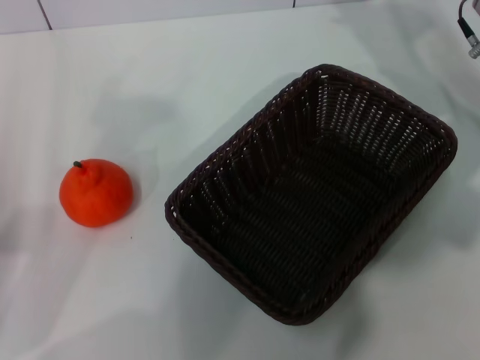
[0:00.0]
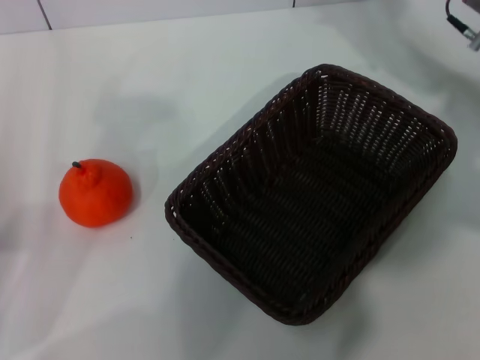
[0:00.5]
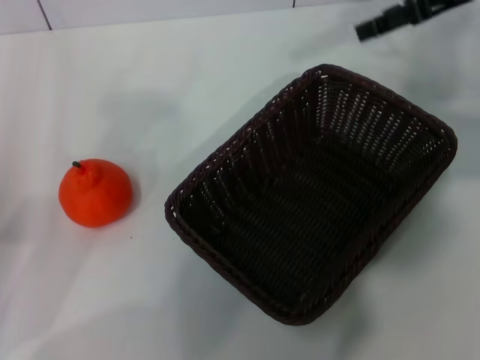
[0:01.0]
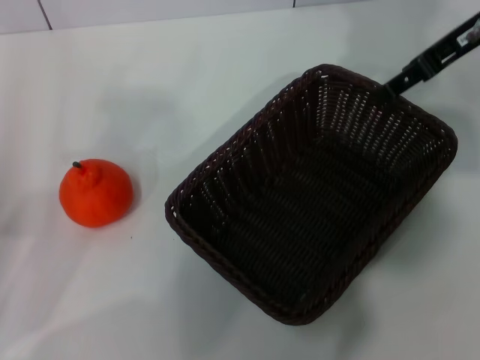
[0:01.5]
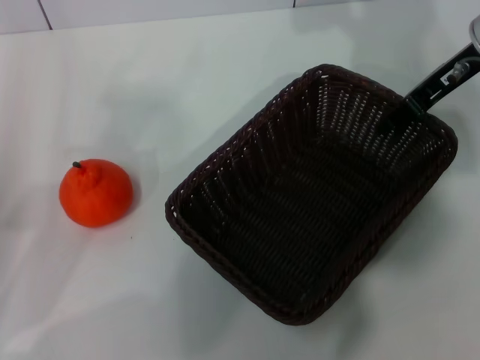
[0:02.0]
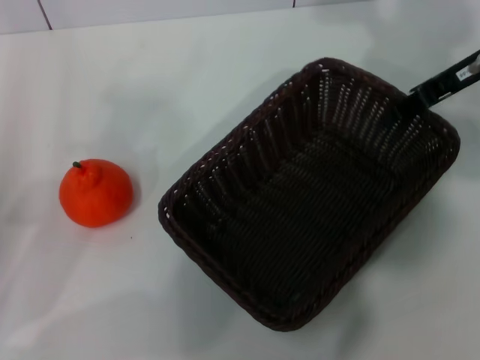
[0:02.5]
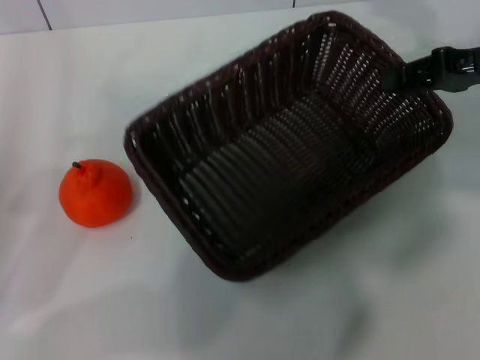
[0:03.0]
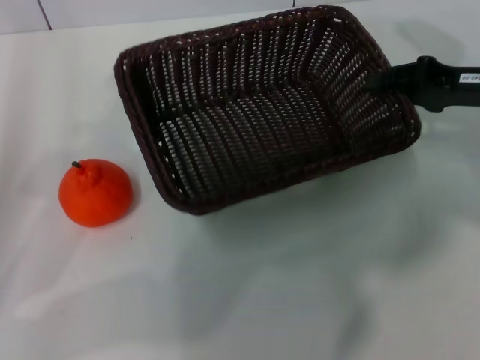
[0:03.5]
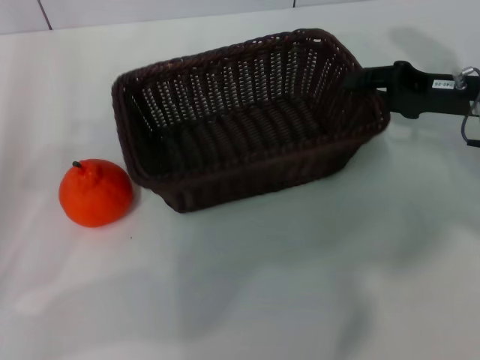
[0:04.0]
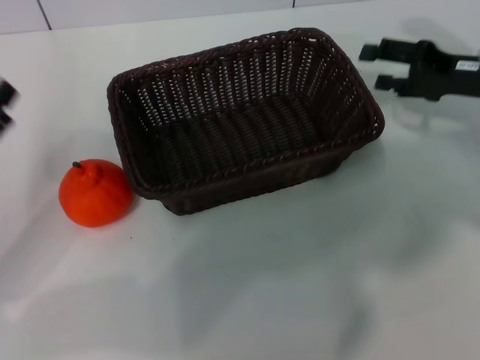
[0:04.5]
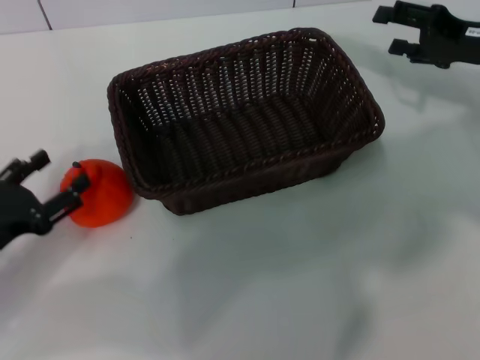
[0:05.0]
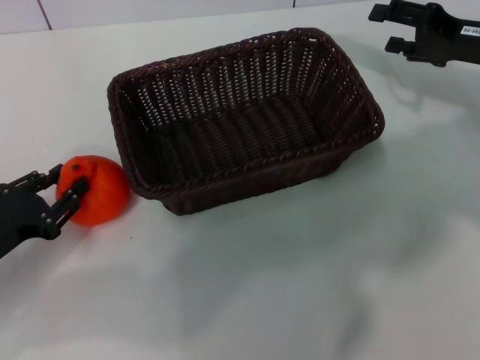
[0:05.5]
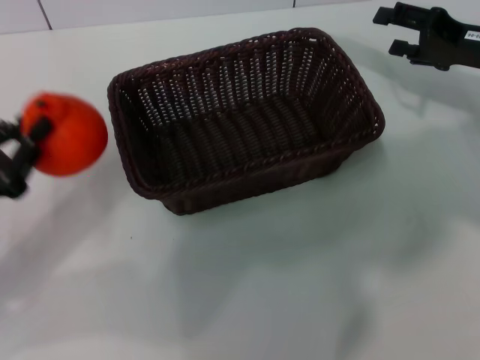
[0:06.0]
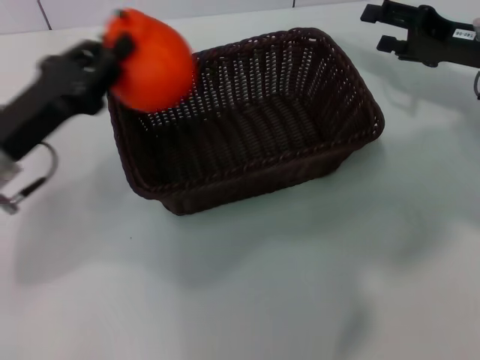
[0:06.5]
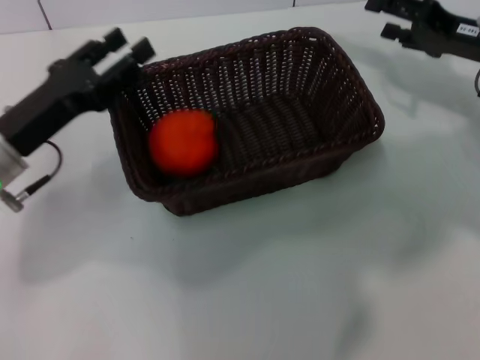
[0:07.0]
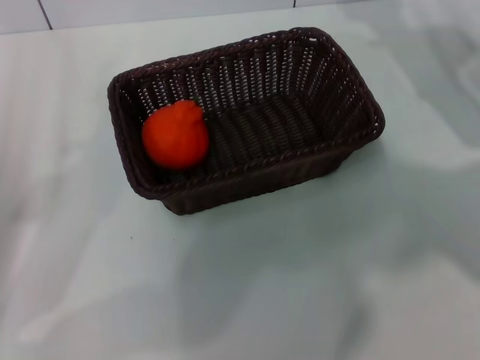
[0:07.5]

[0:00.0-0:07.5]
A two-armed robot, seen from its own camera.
Task of the whole recording: the right gripper pick up the black basket and place it horizontally in the middle of the table, the left gripper pick up the orange and place it into the black basket.
Step, 0:00.0 to 0:02.5: Pick up the dark basket with the right gripper.
Step, 0:03.0 to 0:04.0: Place the dark basket in the center of view with the right gripper.
Step, 0:04.5 to 0:05.5: Pick up the orange with the left gripper.
Step, 0:06.0 to 0:06.5: Place the orange into the dark basket with the left gripper.
0:00.0 to 0:02.0: The right gripper heads upward, covering approximately 5 cm.
0:02.0 to 0:04.0: The right gripper heads downward, covering some 10 cm, and closes its fingers.
0:04.0 to 0:05.5: The left gripper goes approximately 5 cm downward, and closes up, while the right gripper opens its fingers.
0:05.5 to 0:07.5: The left gripper heads upward, covering roughly 5 cm, moves approximately 5 cm forward and comes back, and opens.
